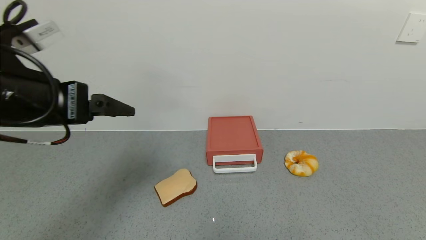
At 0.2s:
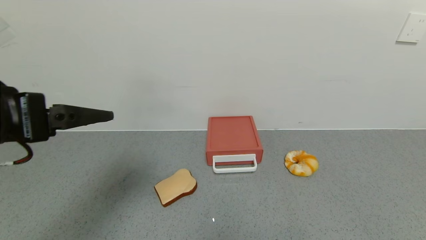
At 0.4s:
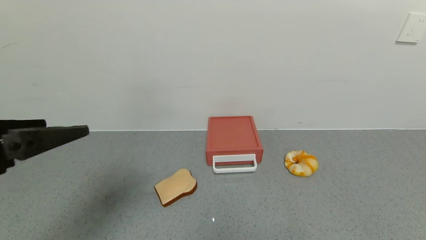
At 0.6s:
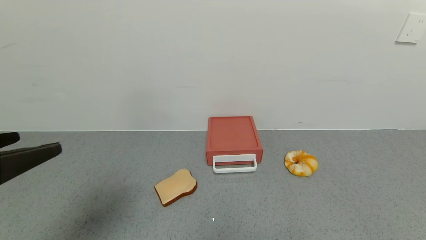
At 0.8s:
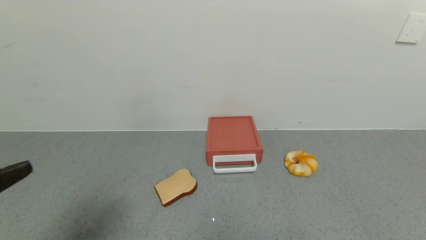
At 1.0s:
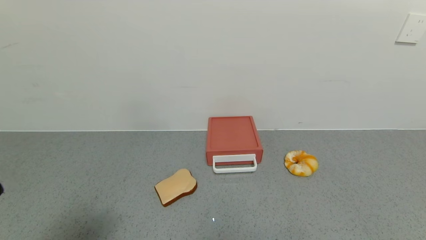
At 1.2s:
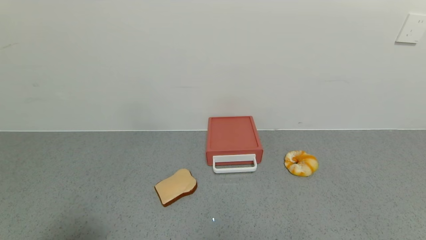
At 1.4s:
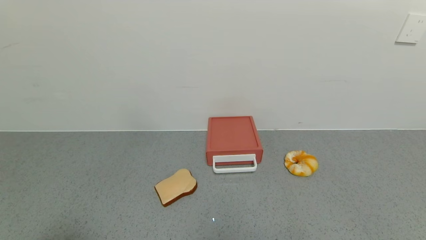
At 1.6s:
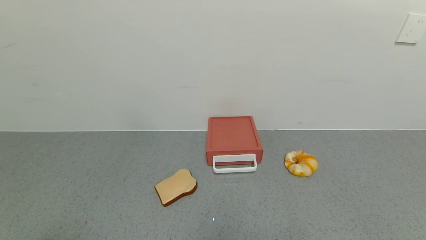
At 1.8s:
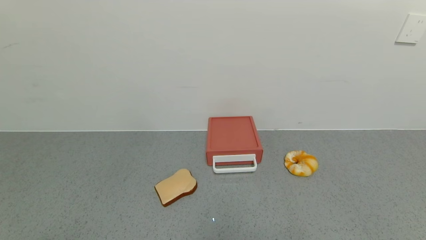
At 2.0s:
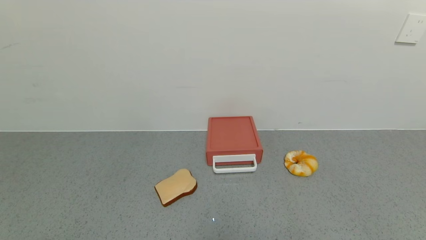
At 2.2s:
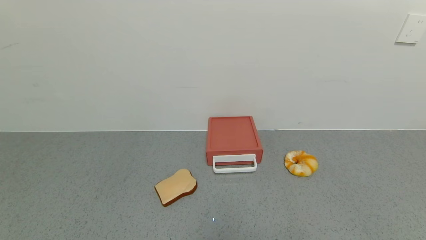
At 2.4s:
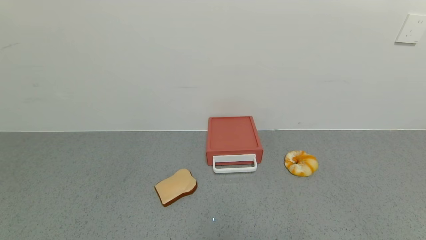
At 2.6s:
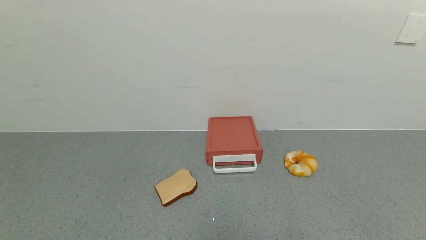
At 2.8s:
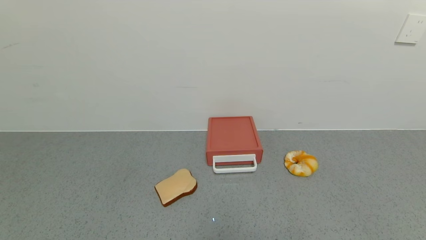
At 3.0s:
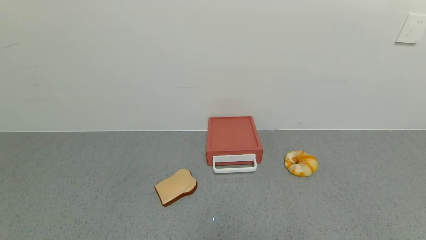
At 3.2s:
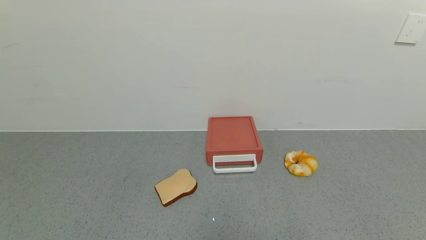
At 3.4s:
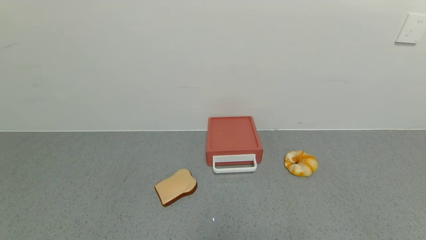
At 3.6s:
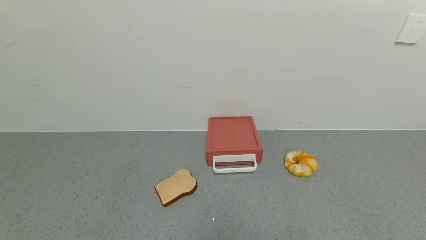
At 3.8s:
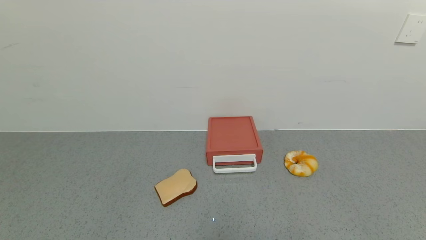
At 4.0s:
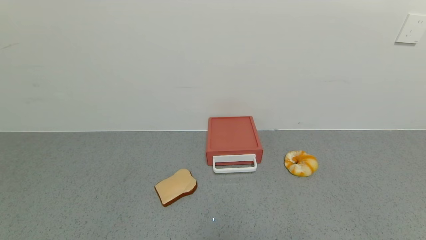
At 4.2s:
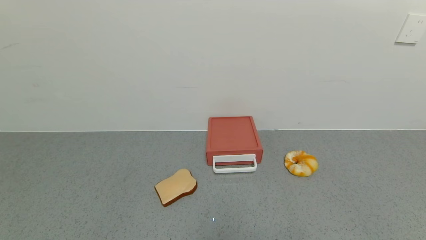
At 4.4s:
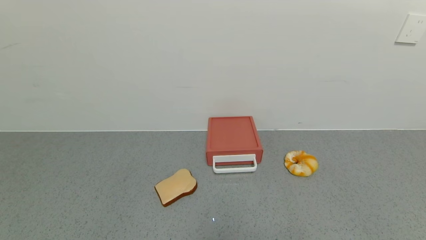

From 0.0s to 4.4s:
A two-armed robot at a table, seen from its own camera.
Task of the whole recording: use the gripper to open the drawer and close the red drawer.
From 0.0s to 1.4s: The left gripper shifts about 20 cm backward.
